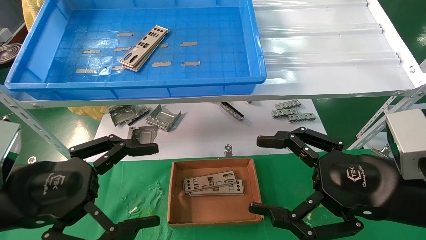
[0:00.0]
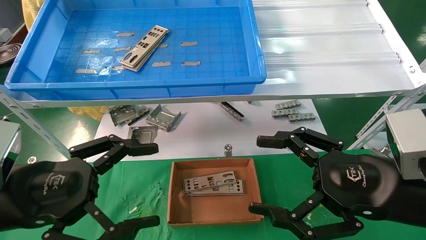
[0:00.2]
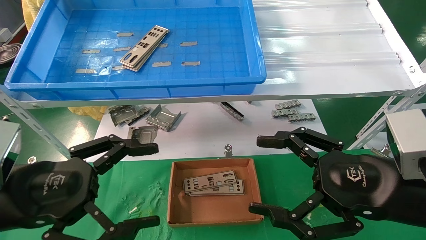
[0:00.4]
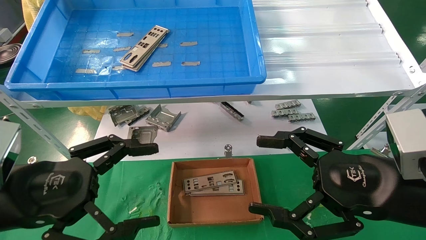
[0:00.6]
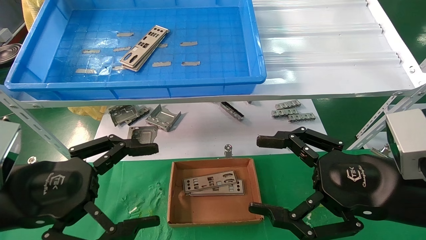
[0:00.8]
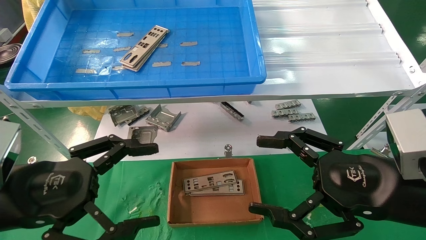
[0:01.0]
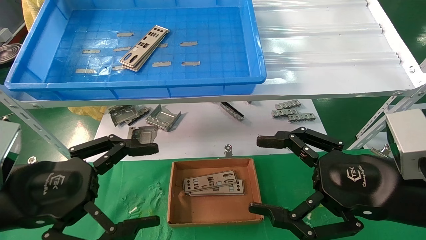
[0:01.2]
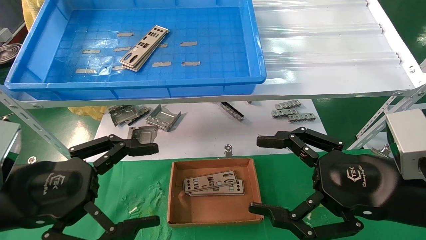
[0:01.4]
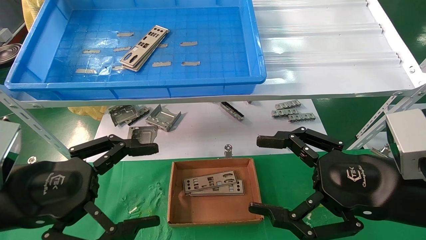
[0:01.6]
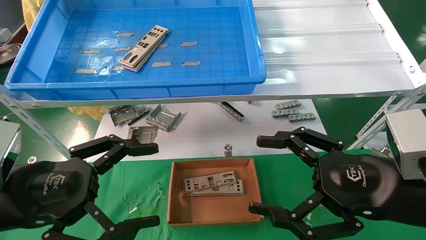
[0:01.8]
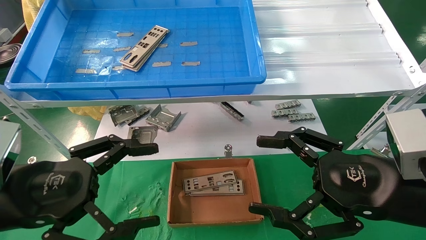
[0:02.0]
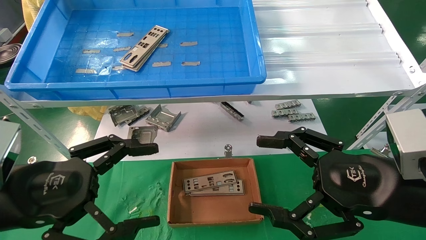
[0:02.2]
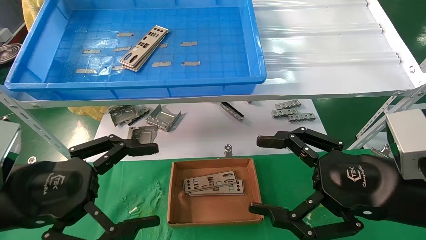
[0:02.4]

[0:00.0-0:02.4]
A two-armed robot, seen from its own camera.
Task of the whole recording: pick up the parts on the tray and put them in the cardboard box.
0:00.0 to 0:02.4: Both grippers stay about where they are.

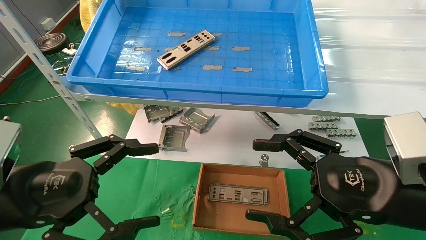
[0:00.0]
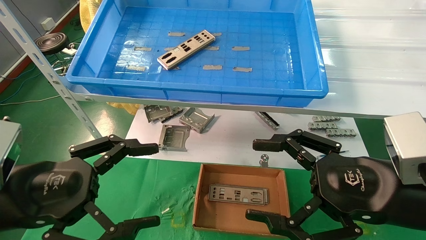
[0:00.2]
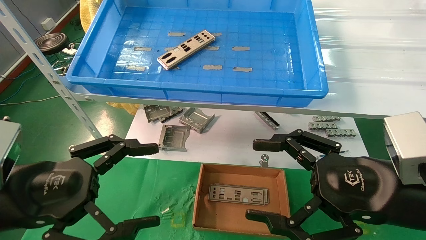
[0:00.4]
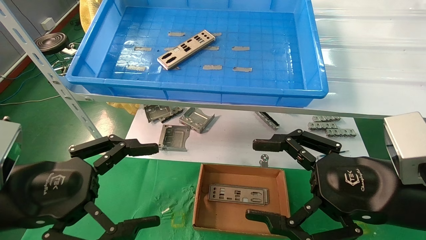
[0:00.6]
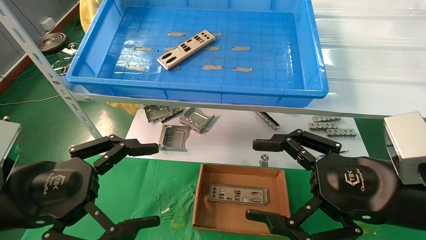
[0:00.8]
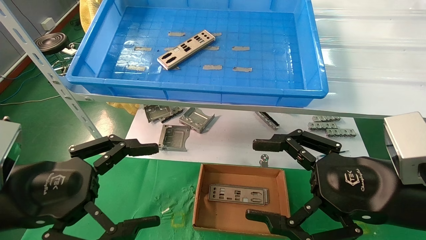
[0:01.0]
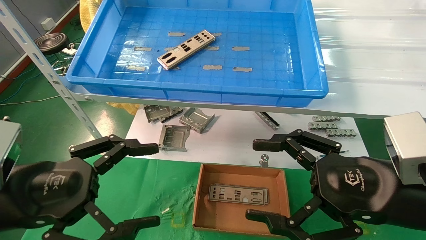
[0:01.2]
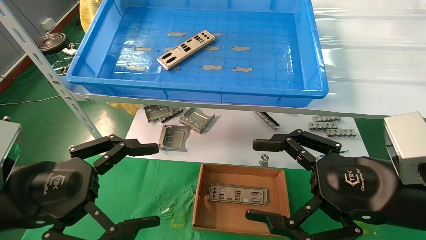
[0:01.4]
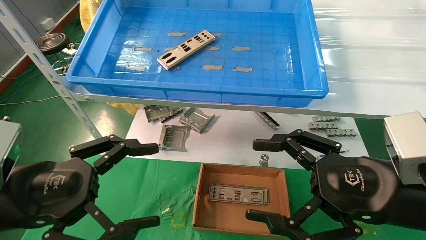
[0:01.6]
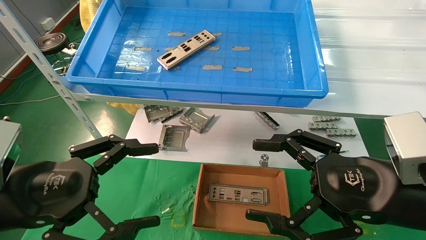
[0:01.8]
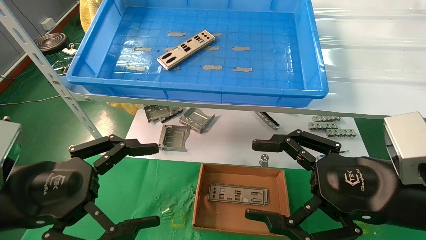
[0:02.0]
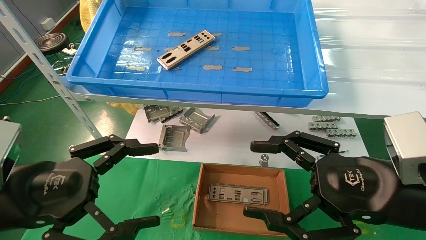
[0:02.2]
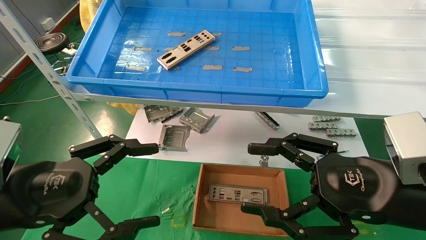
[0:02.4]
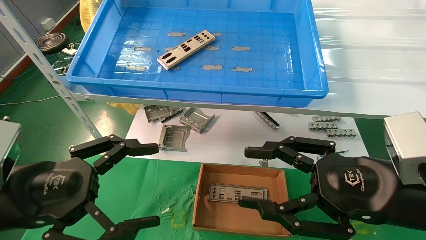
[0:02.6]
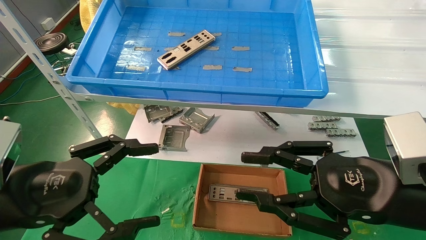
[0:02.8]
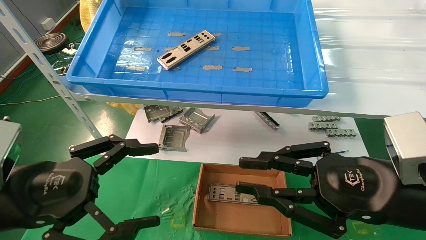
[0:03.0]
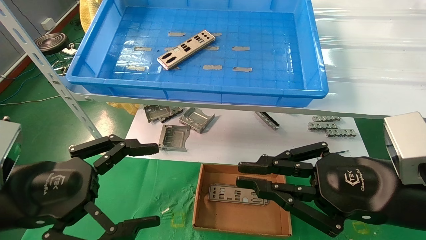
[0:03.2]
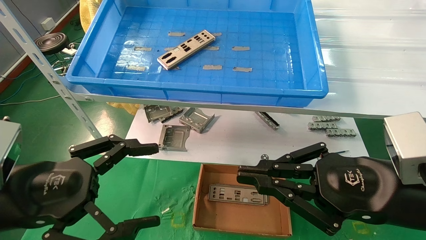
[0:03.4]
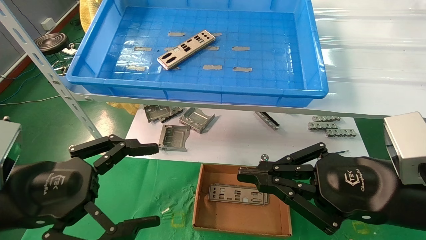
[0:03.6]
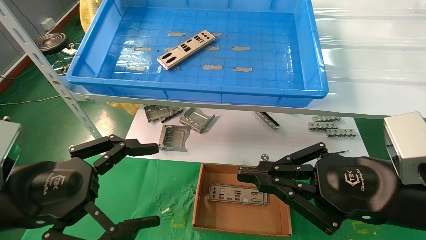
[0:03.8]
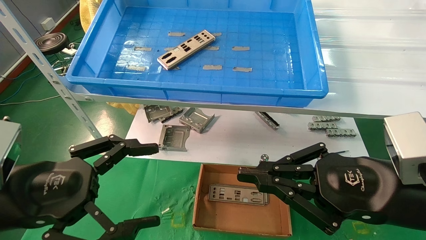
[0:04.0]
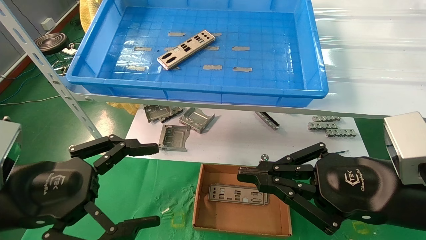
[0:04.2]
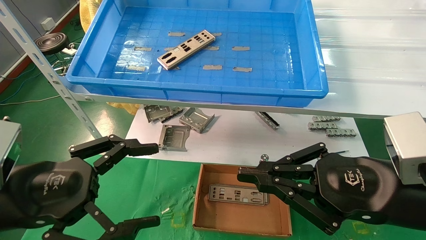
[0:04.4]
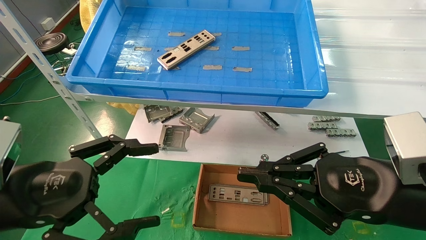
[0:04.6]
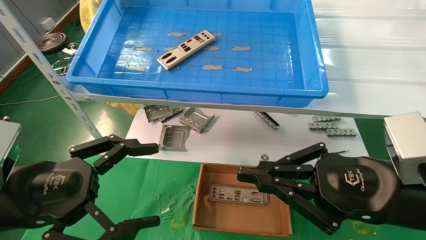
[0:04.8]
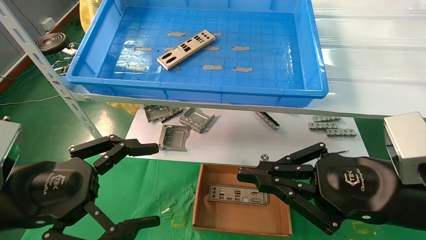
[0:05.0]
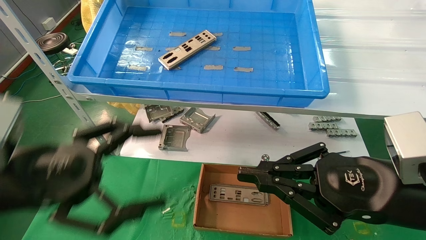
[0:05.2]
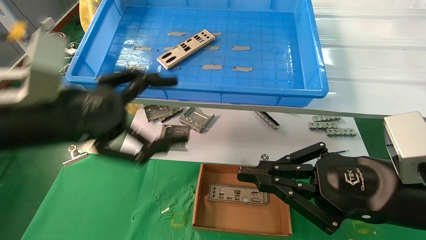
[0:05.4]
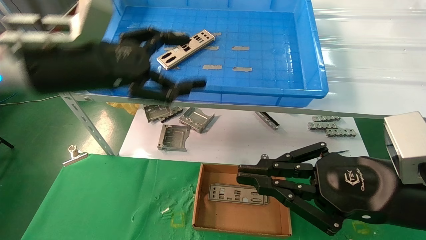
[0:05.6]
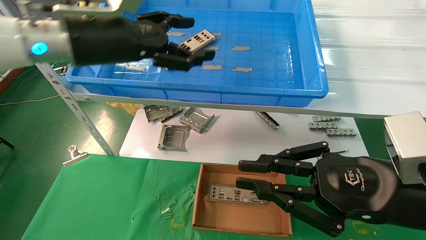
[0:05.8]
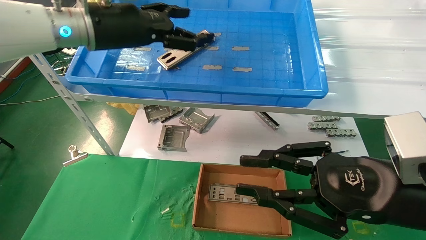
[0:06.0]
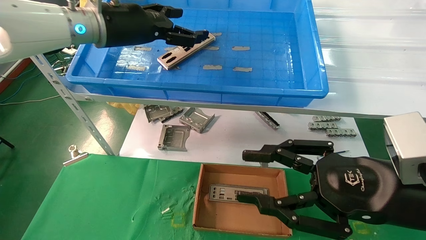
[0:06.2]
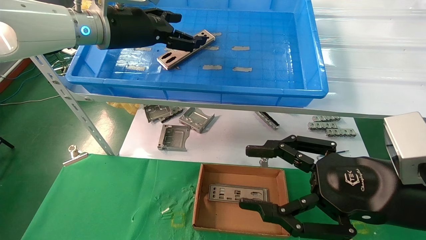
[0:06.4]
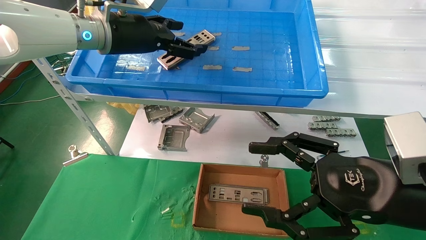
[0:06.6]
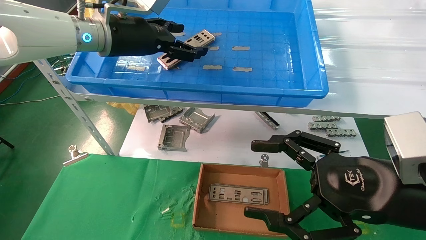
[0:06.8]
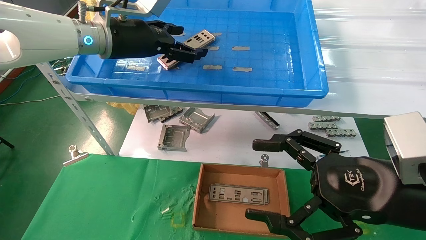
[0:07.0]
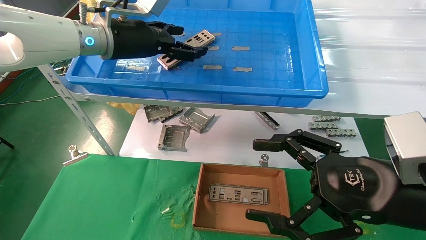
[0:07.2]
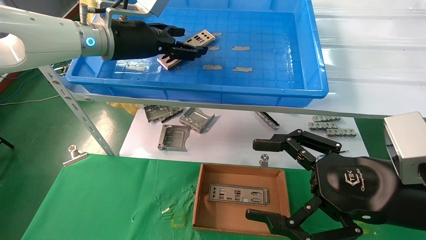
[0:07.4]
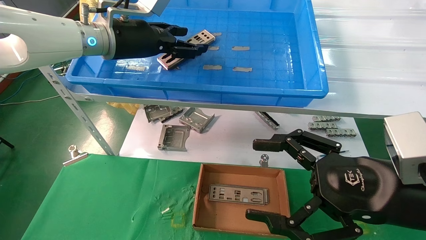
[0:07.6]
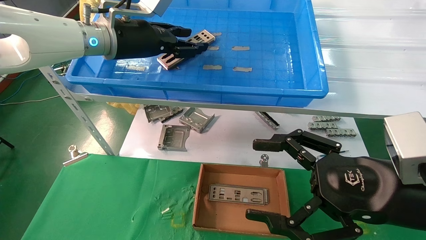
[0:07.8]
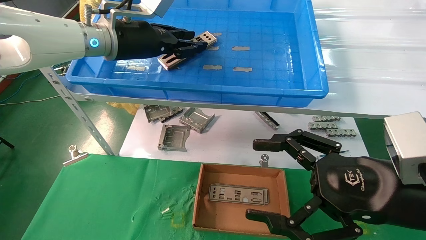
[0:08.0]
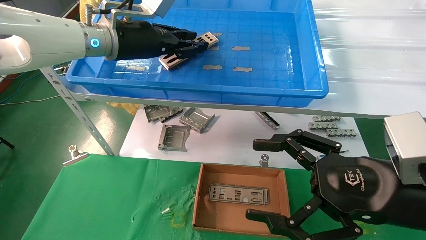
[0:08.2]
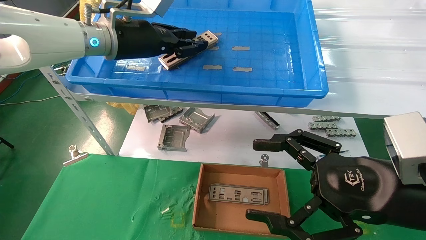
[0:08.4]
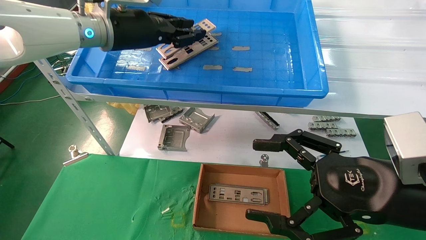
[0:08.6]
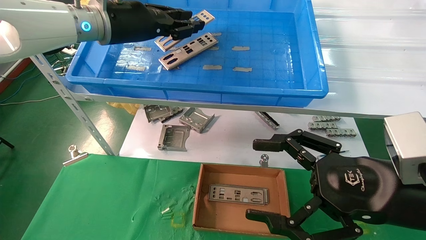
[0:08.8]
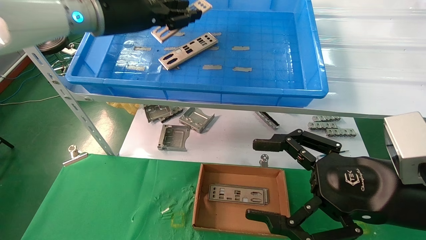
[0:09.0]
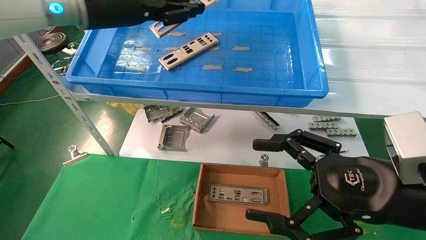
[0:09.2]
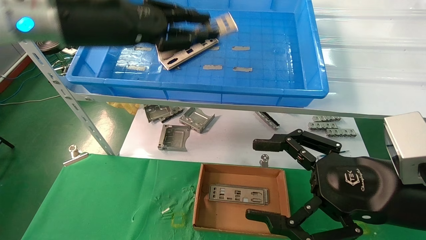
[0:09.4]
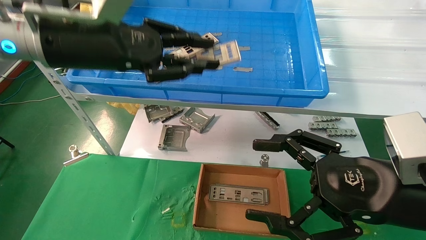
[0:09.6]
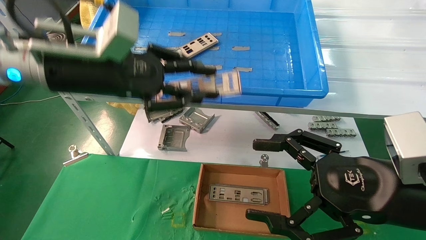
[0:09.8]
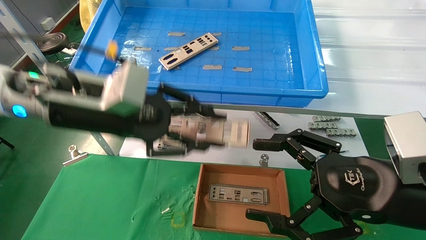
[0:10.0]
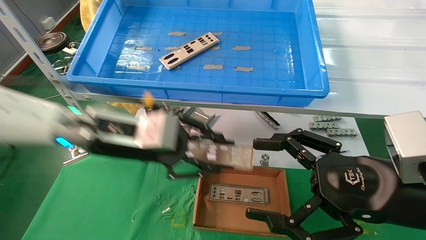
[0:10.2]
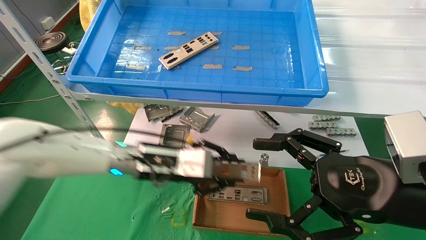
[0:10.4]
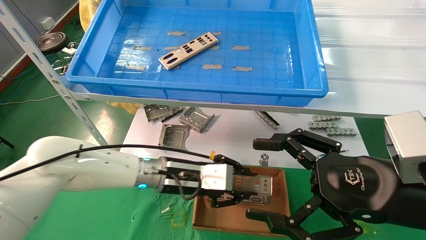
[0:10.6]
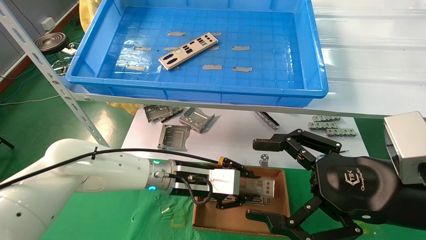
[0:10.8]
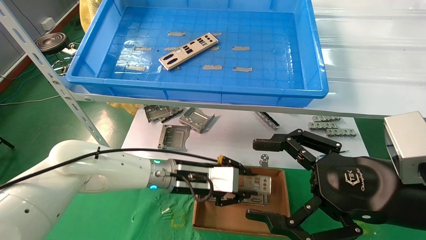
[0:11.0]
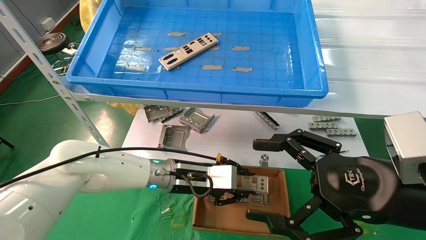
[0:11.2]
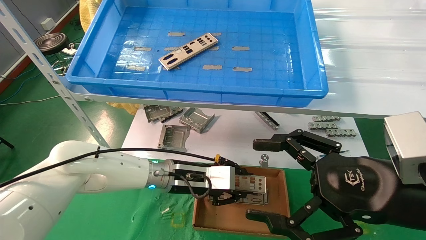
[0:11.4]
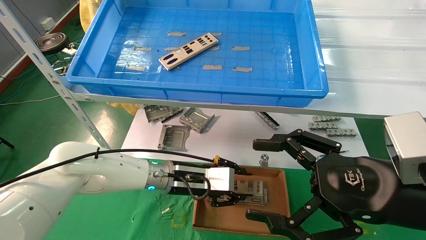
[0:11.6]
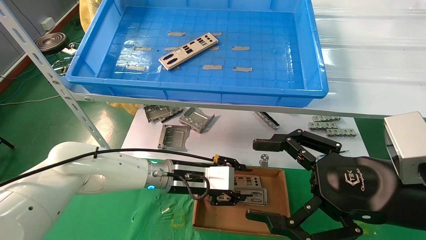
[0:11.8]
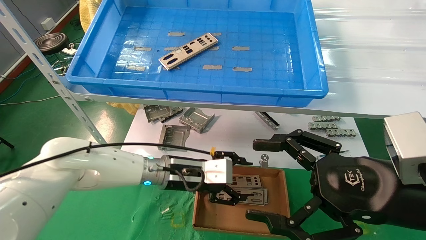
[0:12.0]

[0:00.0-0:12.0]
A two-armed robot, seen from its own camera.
Task of the whole recording: pick up the parts on the tray and put them in the cardboard box.
Step, 0:05.6 to 0:08.2: Pick up the IO bracket from the container box.
Step, 0:08.4 to 0:11.8: Place the IO bracket into the ingredient slot.
0:00.0 to 0:01.6: Neither gripper changes place.
0:01.6 to 0:03.0: The right gripper closes its fingers.
0:03.0 to 0:04.4: The right gripper closes up.
0:04.4 to 0:06.0: The left gripper shifts approximately 30 cm forward, upward and to the right.
0:06.0 to 0:07.6: The right gripper opens.
0:07.6 to 0:09.0: The left gripper closes up.
0:09.0 to 0:10.4: The left gripper goes roughly 25 cm downward.
0:10.4 to 0:12.0: The left gripper travels downward by about 5 cm, and opens.

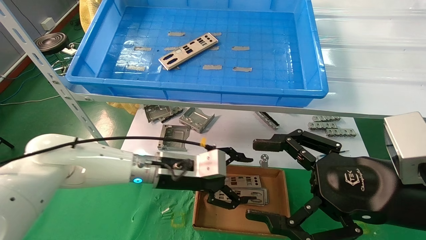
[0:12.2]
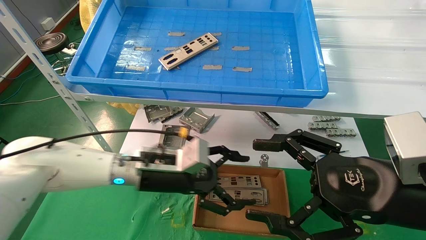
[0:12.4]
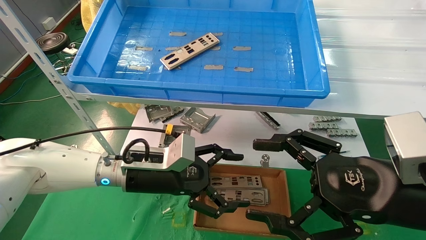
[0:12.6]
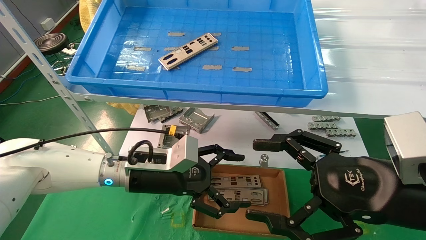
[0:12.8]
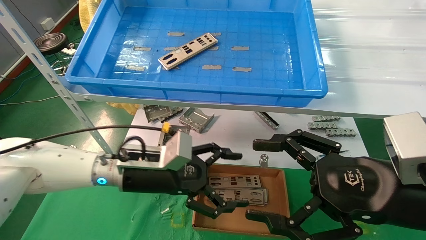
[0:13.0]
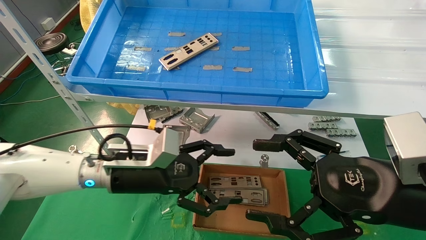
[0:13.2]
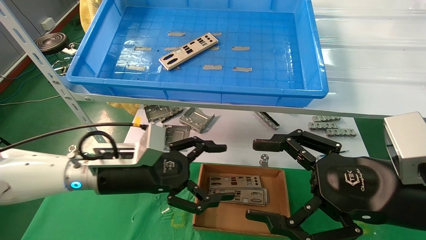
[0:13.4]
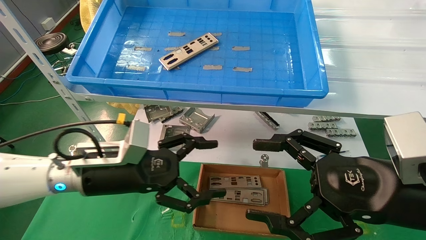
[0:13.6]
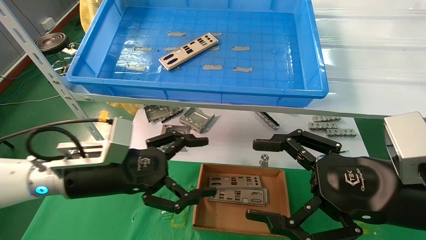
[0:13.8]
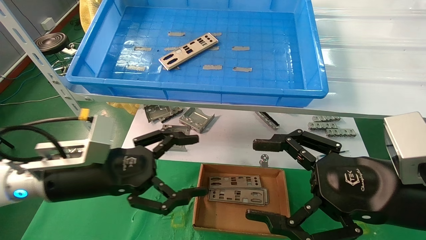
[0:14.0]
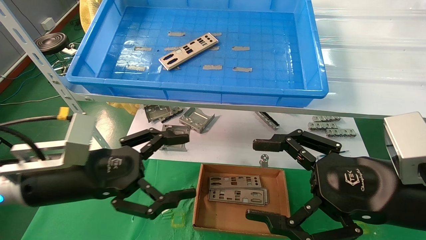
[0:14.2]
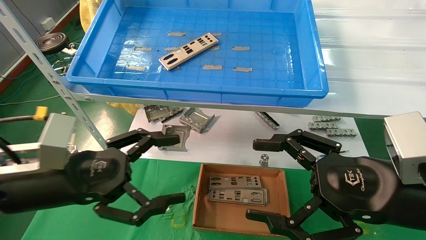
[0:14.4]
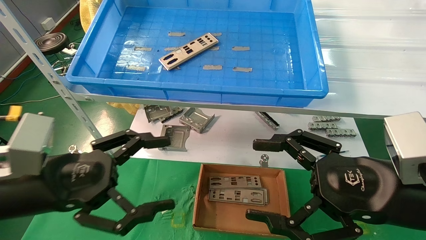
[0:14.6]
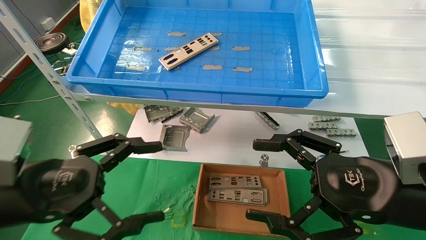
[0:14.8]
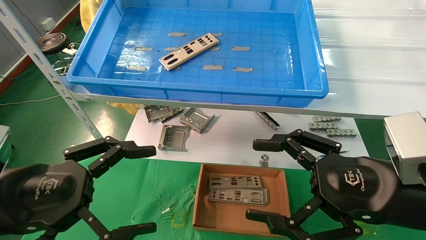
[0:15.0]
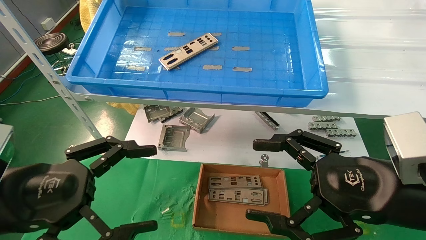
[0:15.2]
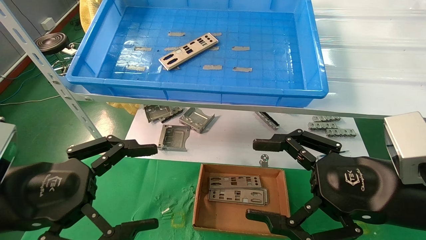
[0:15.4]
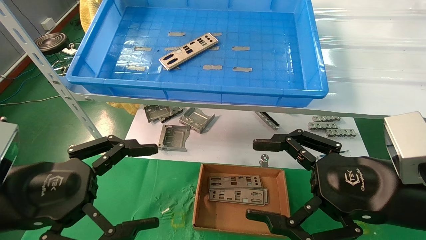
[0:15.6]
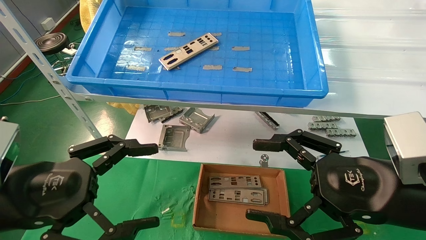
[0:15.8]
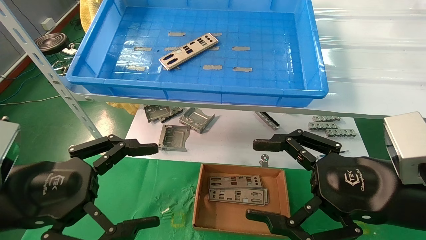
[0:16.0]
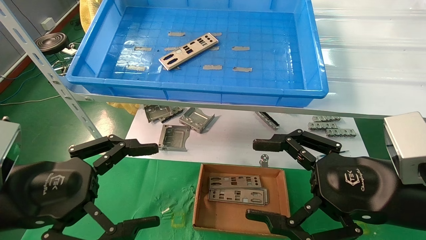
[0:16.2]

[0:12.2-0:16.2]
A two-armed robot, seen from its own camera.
Task of the whole recording: pick up the parts on the tray and put them in the cardboard box.
0:12.2 to 0:13.6: The left gripper heads to the left and backward, covering some 10 cm, and opens.
0:13.6 to 0:14.8: The left gripper goes some 15 cm backward and to the left.
0:14.8 to 0:16.2: The grippers make only small movements.
